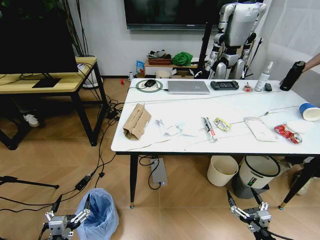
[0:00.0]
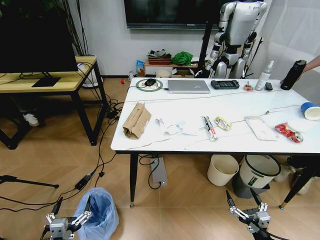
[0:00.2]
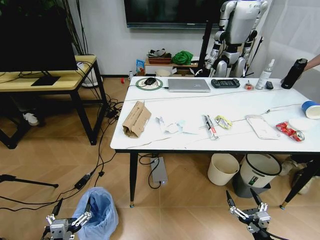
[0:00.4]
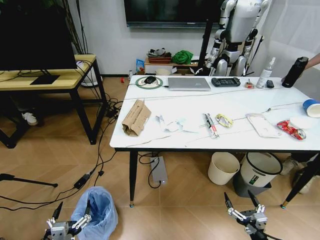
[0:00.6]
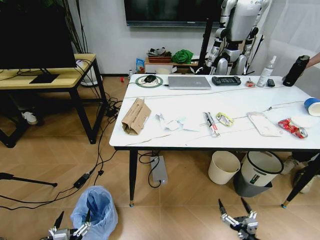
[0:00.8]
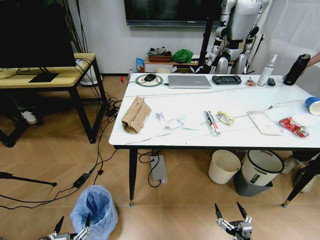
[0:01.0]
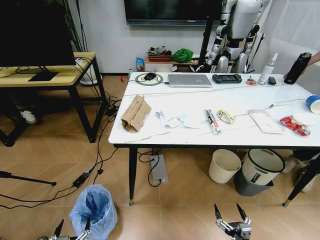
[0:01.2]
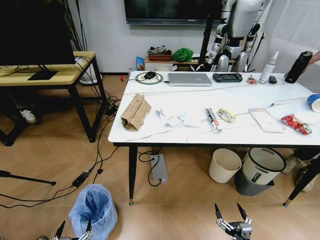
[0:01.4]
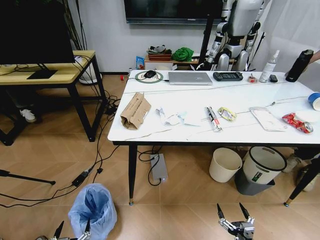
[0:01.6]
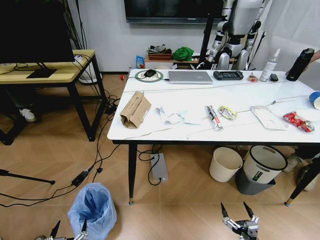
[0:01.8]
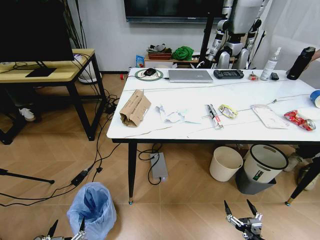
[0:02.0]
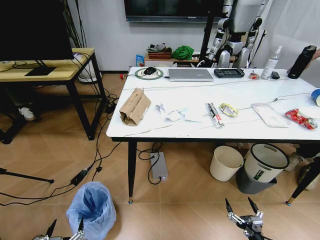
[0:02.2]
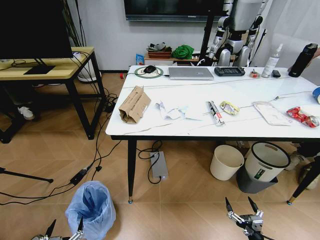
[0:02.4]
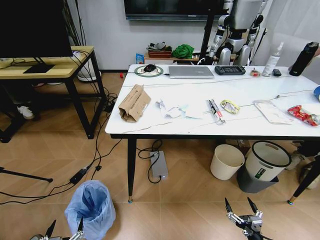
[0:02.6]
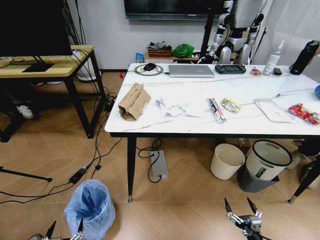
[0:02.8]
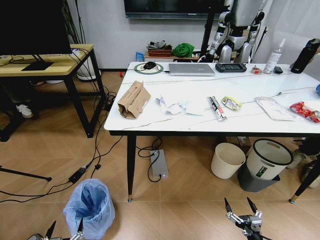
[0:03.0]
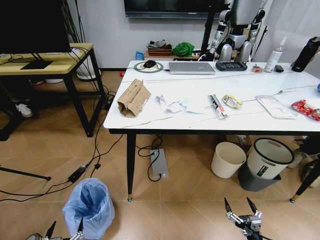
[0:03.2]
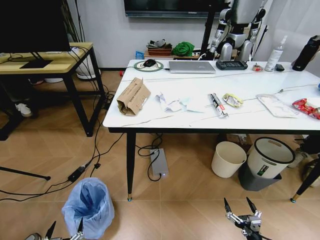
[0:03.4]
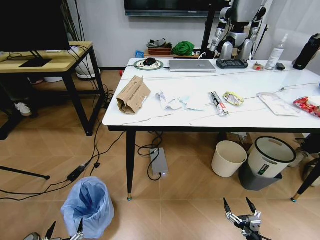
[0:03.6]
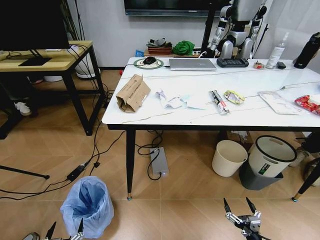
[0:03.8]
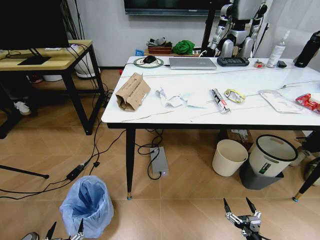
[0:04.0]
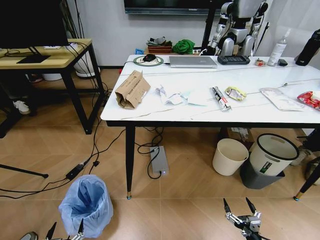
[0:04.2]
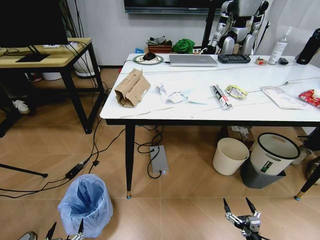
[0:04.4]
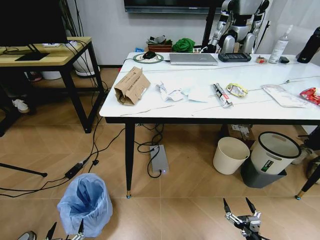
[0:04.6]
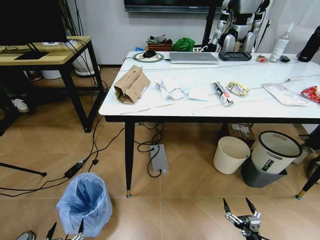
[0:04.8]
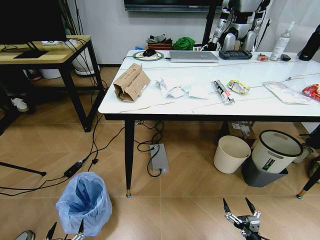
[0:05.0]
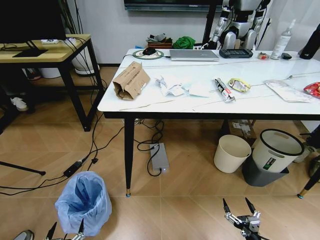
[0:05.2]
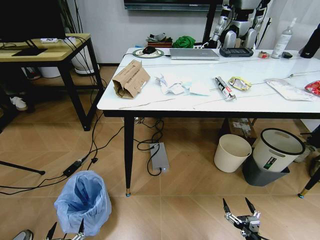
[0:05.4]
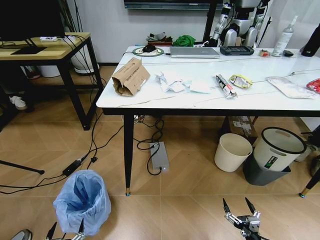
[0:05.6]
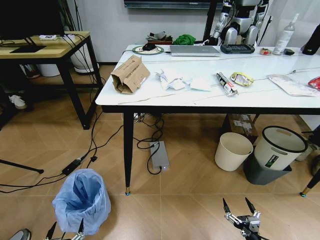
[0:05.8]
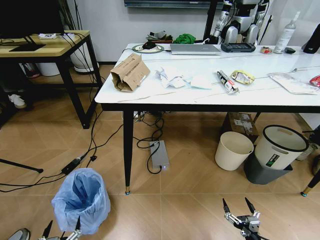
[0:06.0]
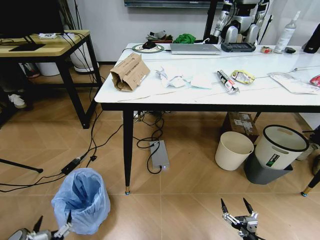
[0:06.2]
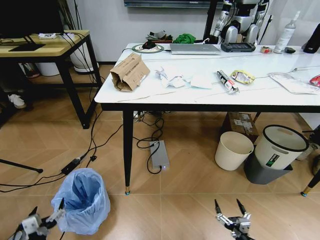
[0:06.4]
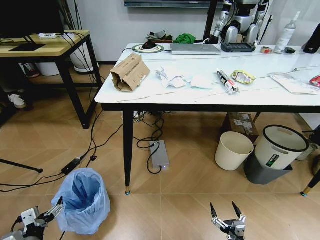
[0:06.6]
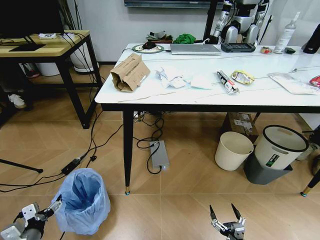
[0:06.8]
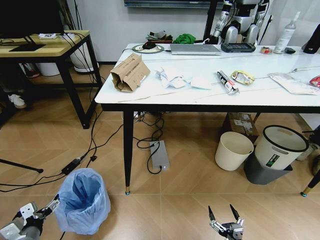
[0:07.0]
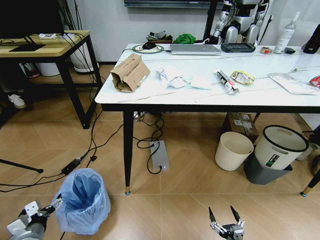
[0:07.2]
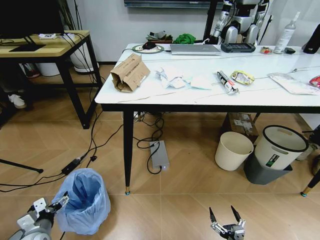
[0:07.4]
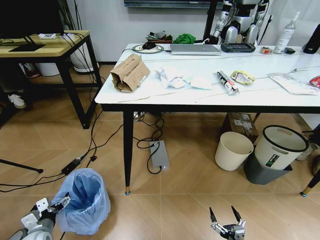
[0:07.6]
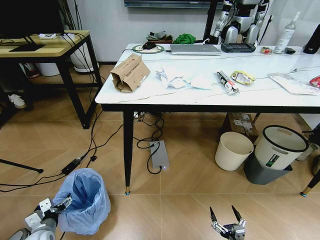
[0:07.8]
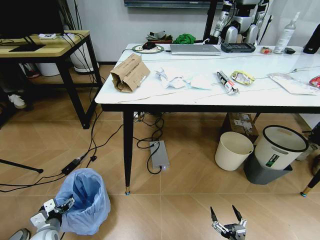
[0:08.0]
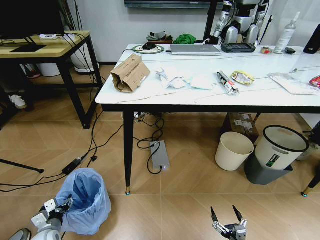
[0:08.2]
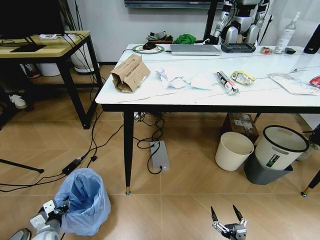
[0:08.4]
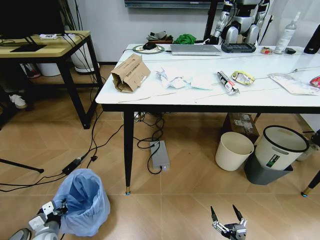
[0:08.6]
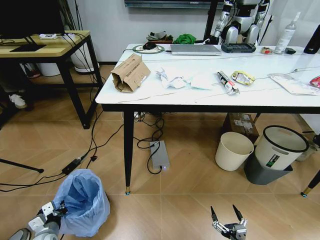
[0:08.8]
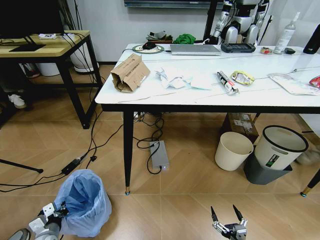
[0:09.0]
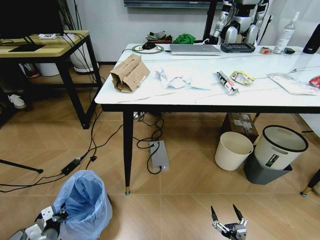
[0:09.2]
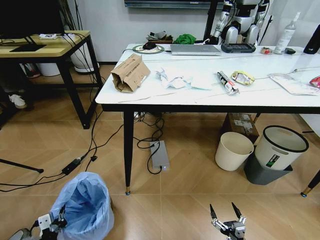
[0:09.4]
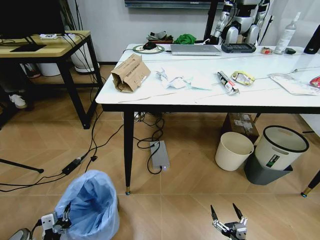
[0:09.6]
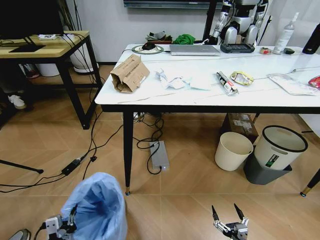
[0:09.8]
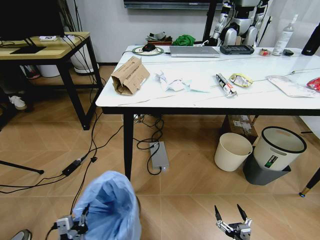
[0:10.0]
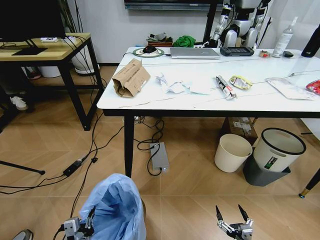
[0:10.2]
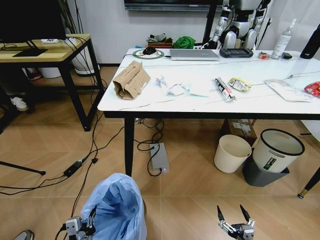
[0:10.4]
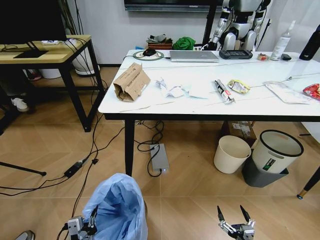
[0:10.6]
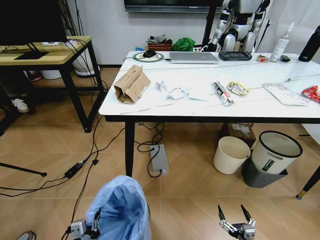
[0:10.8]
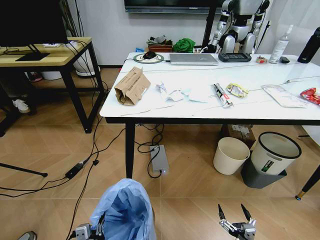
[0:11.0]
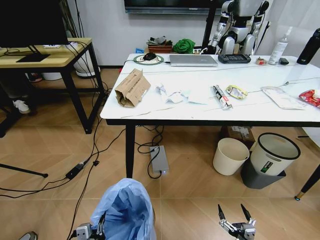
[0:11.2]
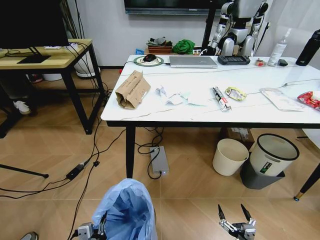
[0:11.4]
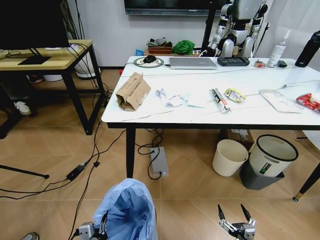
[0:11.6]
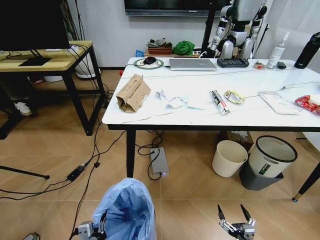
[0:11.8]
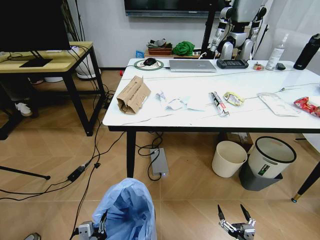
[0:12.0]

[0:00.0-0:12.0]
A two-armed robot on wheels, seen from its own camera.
Task of the whole recording: Pick up the trash bin and place the trash from the table into it.
0:06.0 to 0:07.6: The left gripper is displaced forward and to the left by some 20 cm. The right gripper heads to the left, covering about 5 cm.
0:07.6 to 0:09.0: The left gripper closes its fingers.
0:09.0 to 0:10.4: The left gripper travels to the right, backward and upward by roughly 20 cm.

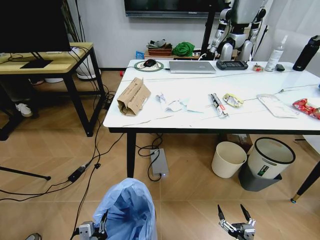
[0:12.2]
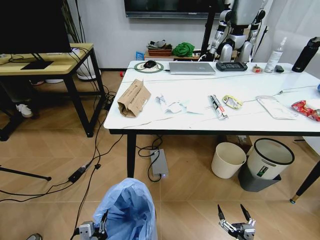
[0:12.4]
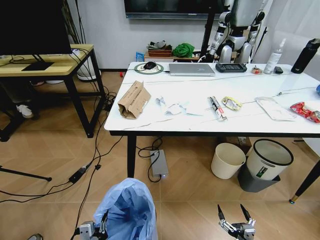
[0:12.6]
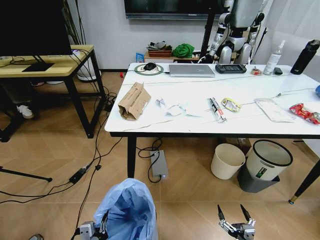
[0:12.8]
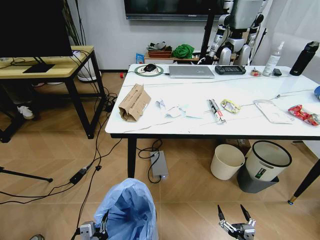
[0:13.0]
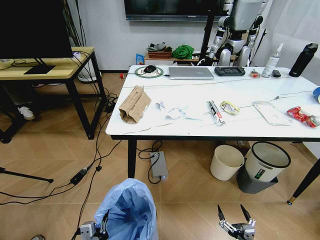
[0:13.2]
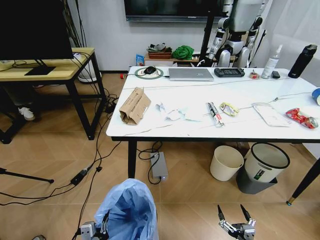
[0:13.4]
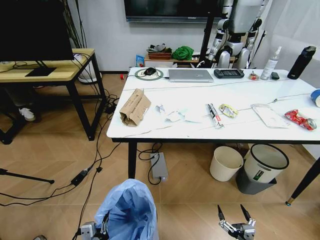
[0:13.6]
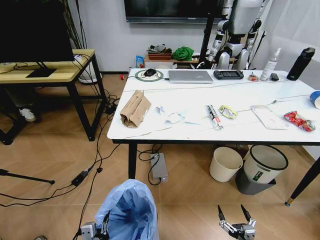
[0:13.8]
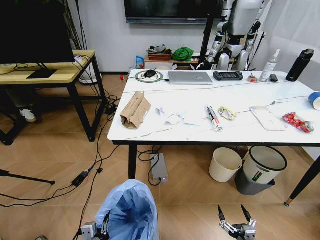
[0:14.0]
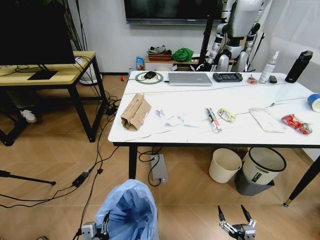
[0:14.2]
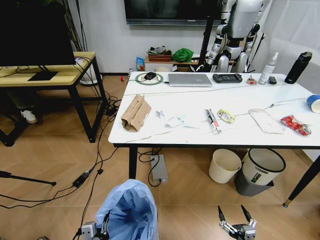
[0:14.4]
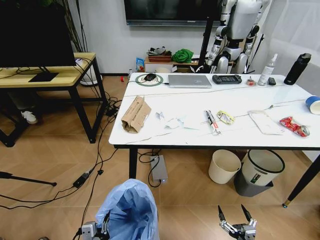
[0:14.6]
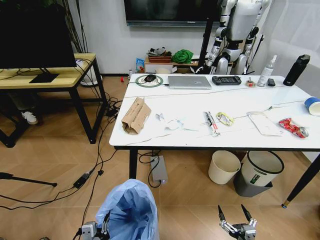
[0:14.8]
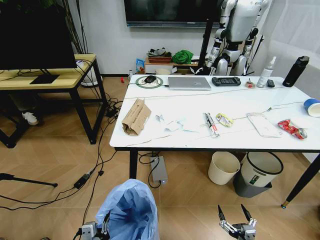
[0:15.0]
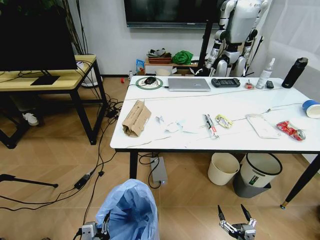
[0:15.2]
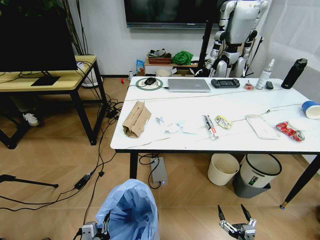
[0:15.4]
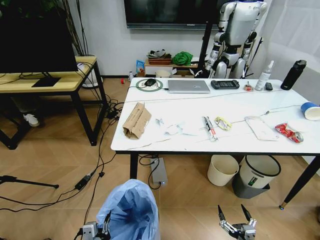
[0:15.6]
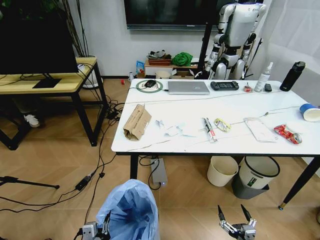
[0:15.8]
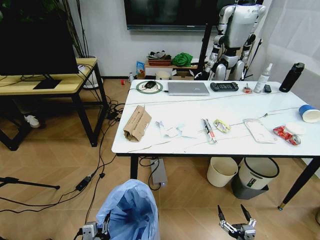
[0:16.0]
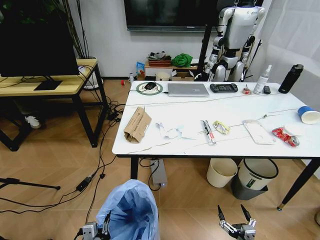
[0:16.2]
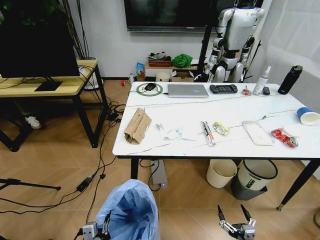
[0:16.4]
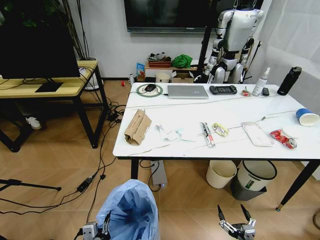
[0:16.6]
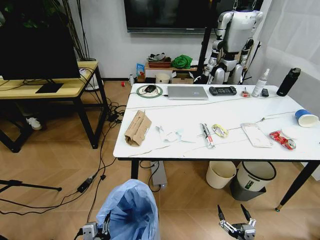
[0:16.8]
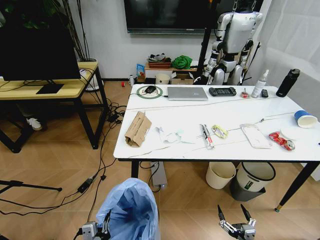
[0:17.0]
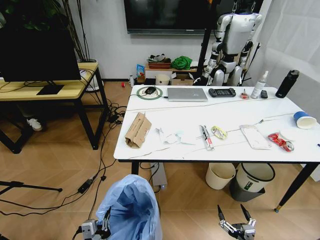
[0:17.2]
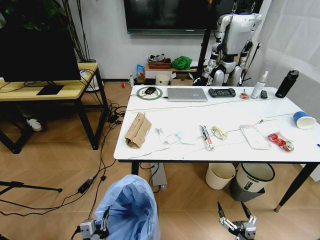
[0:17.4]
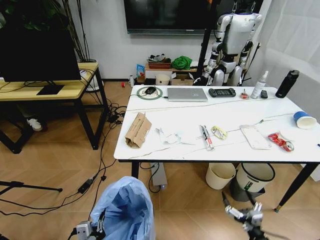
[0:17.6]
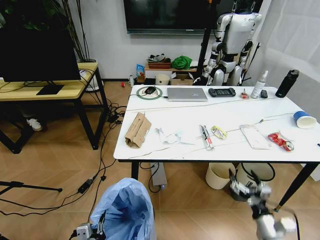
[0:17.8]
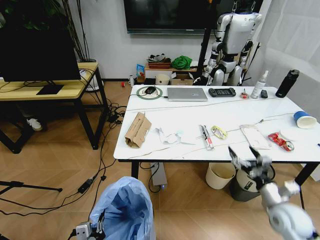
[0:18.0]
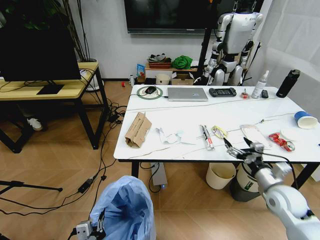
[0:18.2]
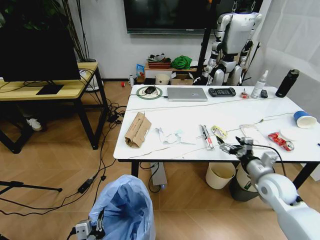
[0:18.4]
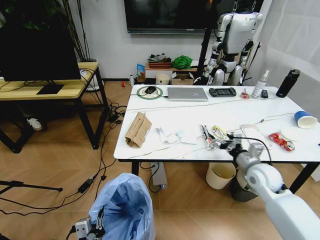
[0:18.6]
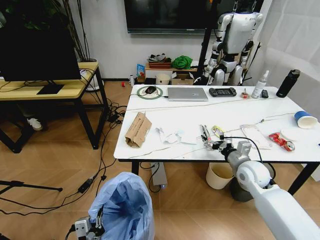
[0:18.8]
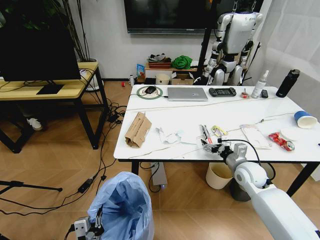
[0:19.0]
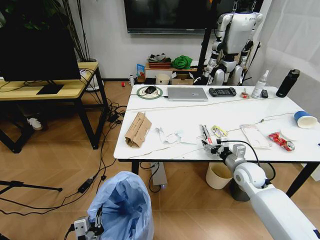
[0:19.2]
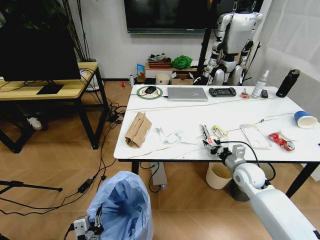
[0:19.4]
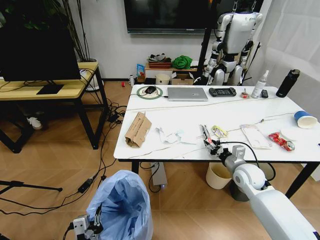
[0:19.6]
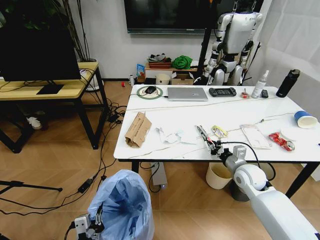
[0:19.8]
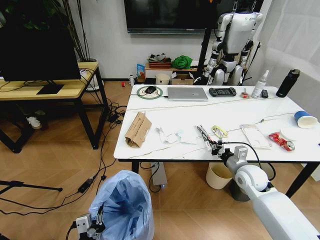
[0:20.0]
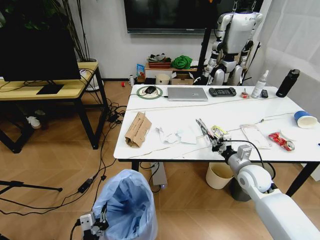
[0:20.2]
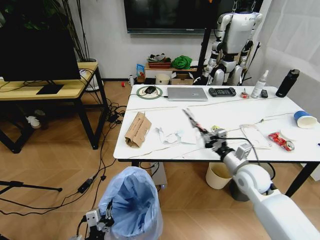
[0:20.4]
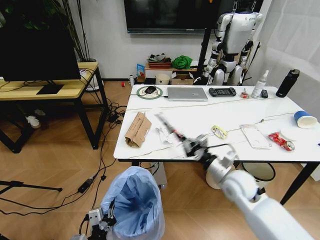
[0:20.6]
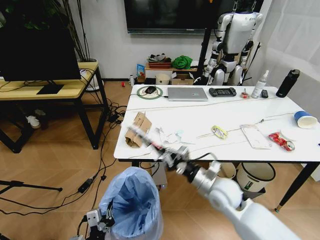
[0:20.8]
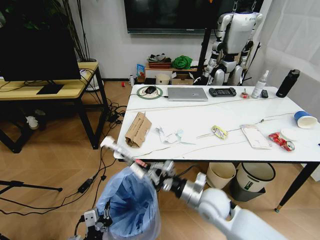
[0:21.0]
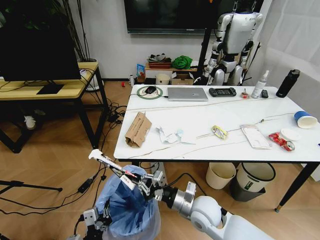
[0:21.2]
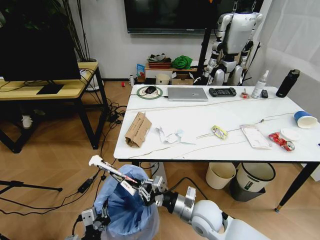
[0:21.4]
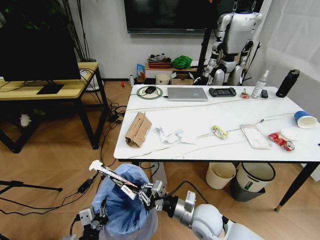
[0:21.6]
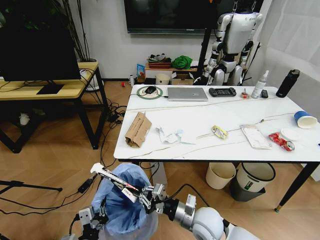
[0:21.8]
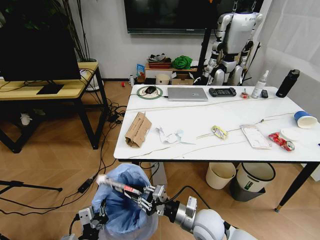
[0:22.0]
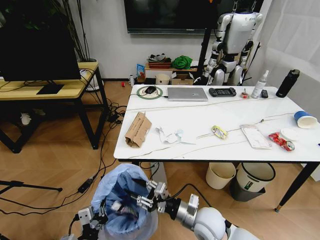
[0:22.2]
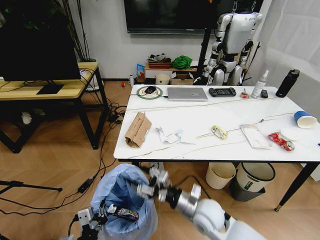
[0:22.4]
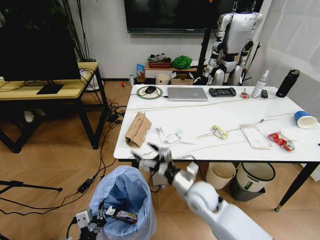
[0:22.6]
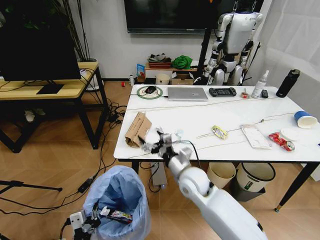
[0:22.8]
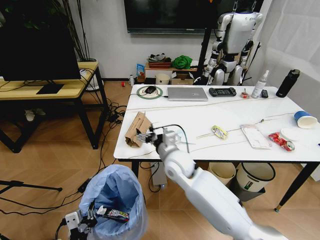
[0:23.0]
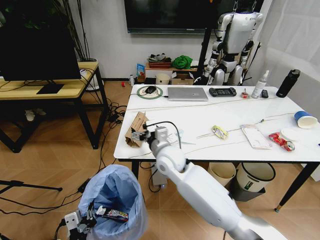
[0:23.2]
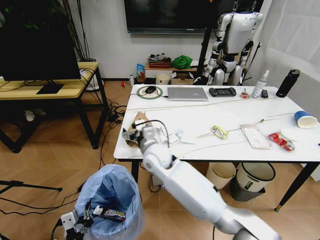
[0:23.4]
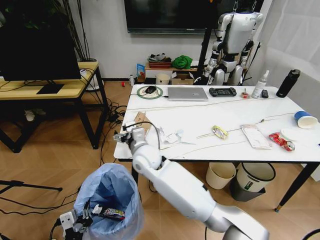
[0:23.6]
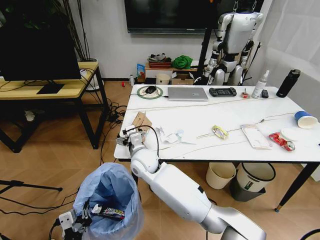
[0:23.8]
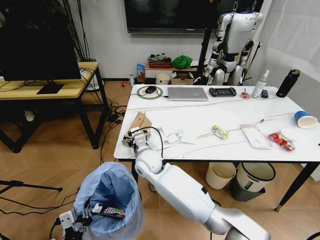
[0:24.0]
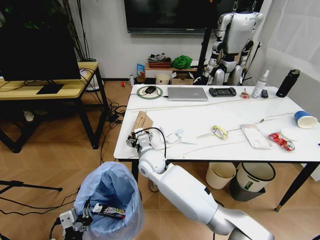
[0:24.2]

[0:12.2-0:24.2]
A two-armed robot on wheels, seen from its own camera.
Task of the whole recording: Pick up the trash bin and place the trash from the table into it.
0:16.6 to 0:18.2: The right gripper travels forward and upward by some 30 cm.
0:18.2 to 0:19.8: The right gripper is displaced forward and to the left by some 10 cm, and closes.
0:19.8 to 0:21.2: The right gripper travels to the left and backward by about 20 cm.
0:21.2 to 0:22.6: The right gripper ends up approximately 5 cm from where it was, and opens up.
0:22.6 to 0:24.2: The right gripper moves to the left and forward, roughly 20 cm.
